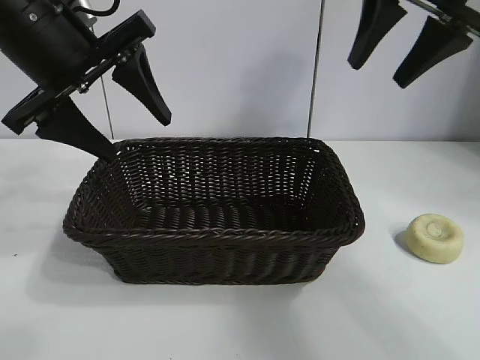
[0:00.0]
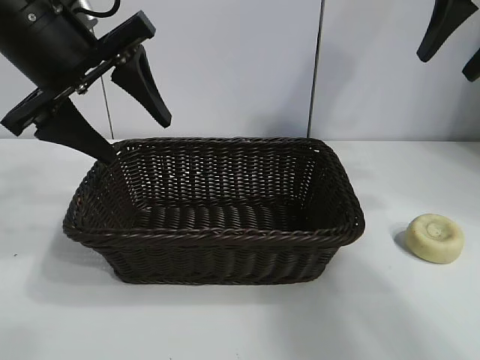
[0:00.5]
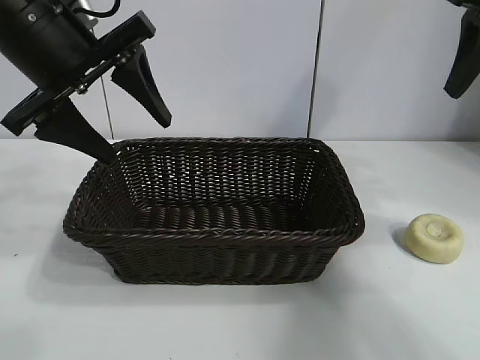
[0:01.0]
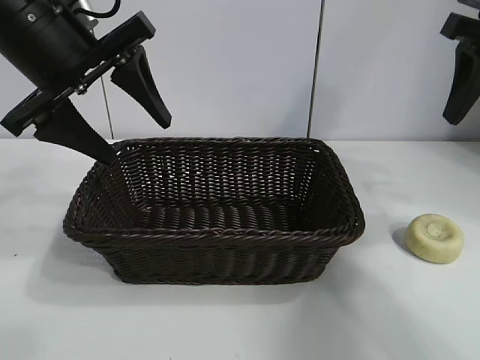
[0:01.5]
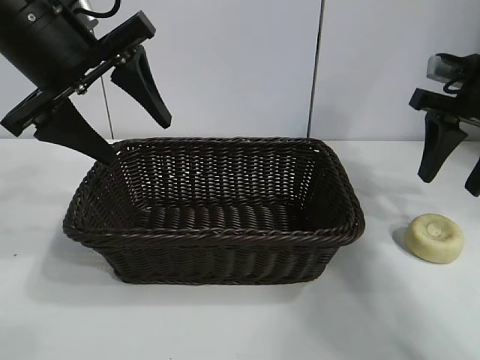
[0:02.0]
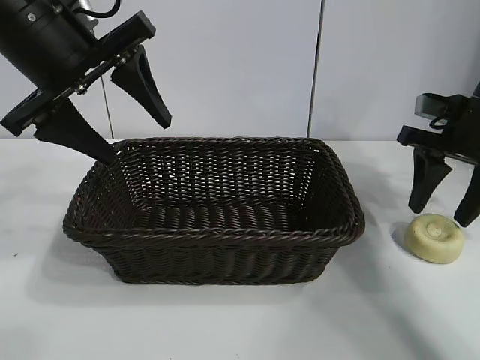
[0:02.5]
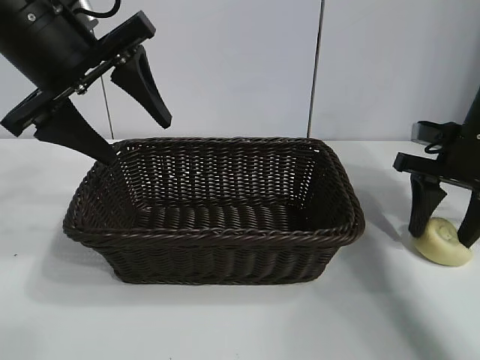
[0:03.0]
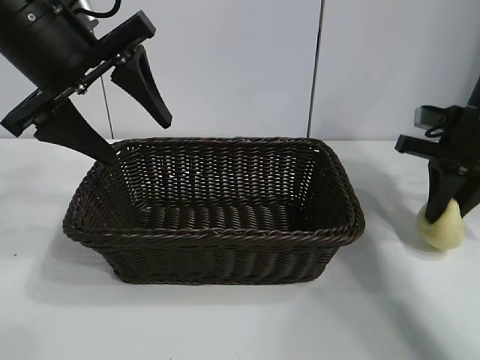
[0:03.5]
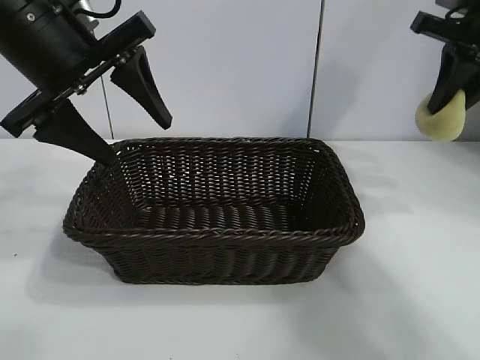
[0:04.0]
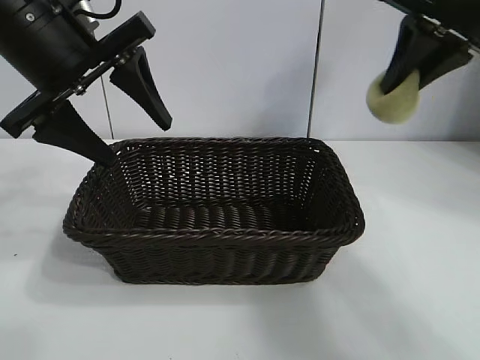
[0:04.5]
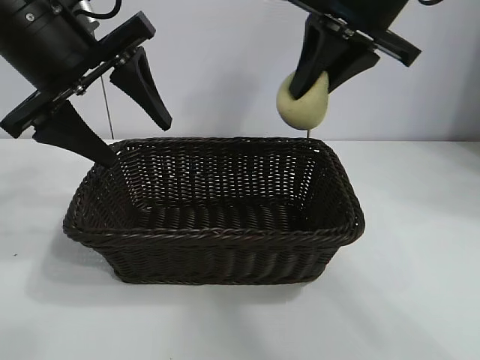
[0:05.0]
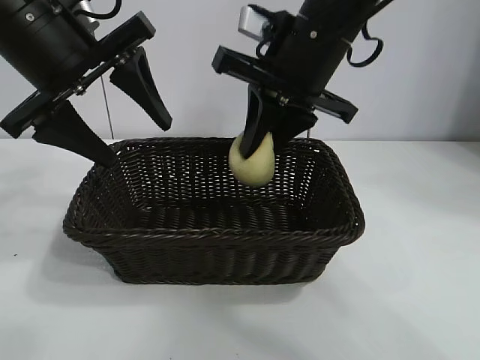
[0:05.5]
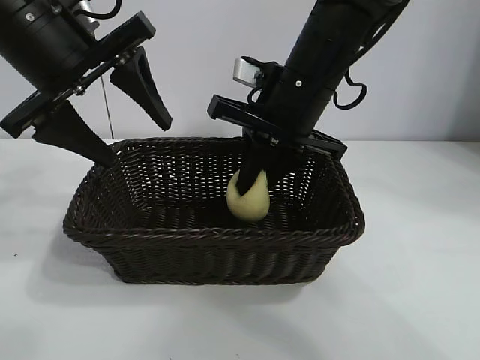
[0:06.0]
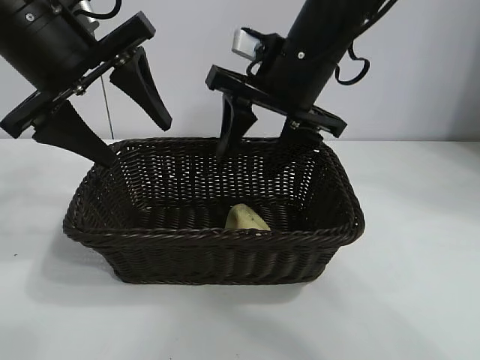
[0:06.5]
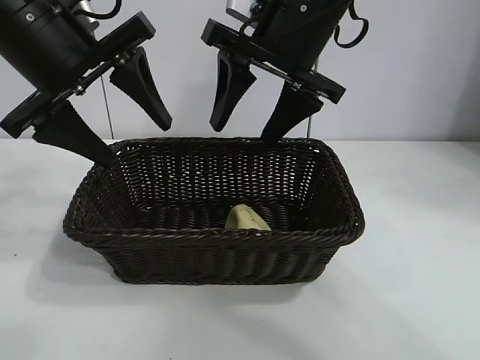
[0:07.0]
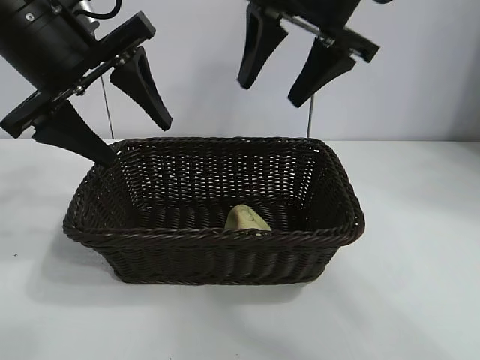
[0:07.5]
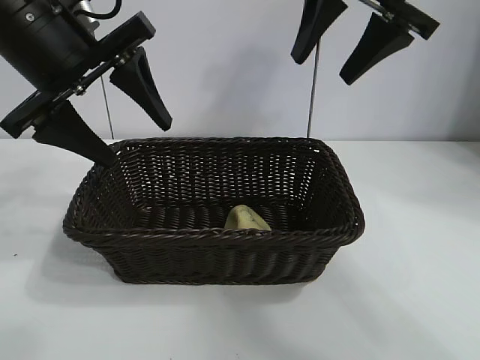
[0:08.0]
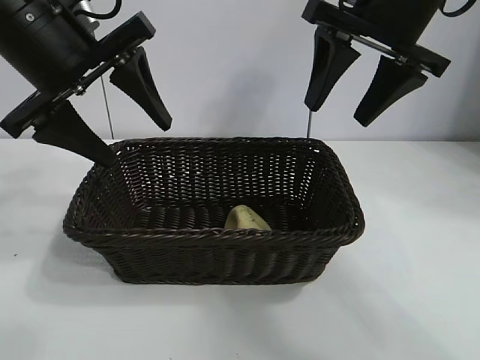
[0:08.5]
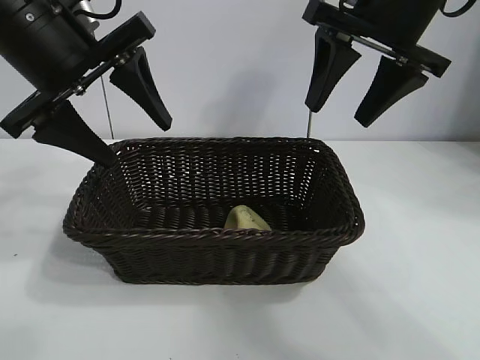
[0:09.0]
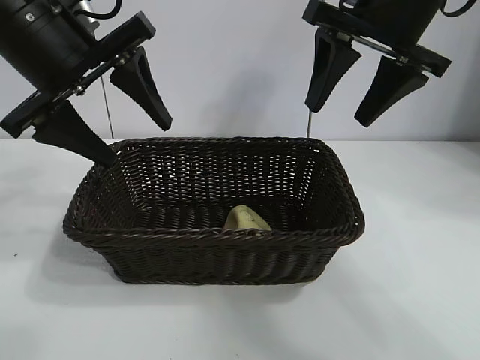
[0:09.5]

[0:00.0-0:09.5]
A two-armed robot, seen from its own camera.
Task of the whole recording: pick up the egg yolk pastry and put it into the basket.
Step, 0:00.0 to 0:03.0: Grasp egg yolk pastry with right gripper.
Step, 0:03.5 to 0:06.0: Place the egg yolk pastry in the basket with right gripper.

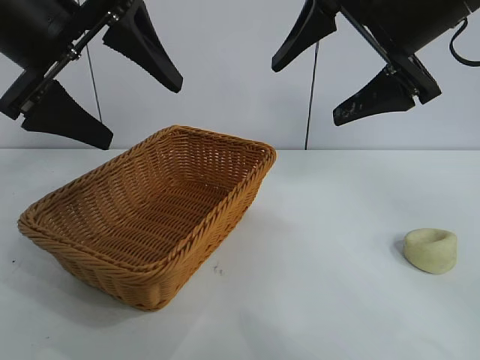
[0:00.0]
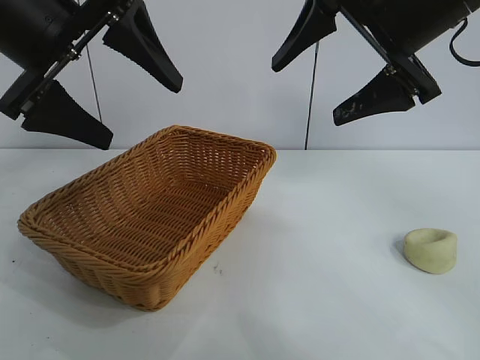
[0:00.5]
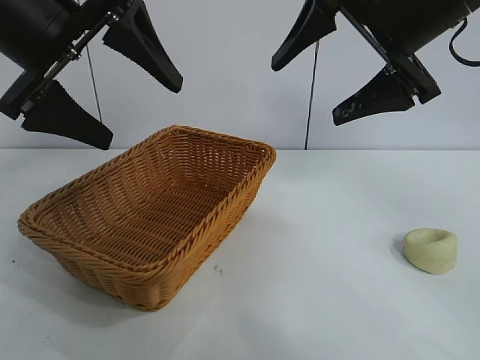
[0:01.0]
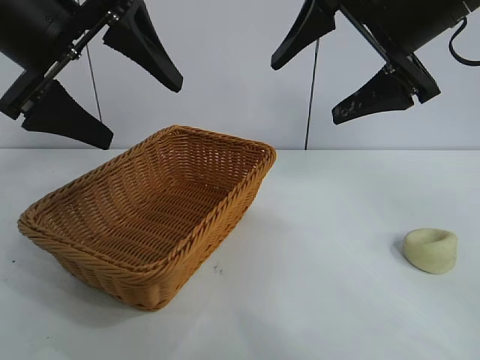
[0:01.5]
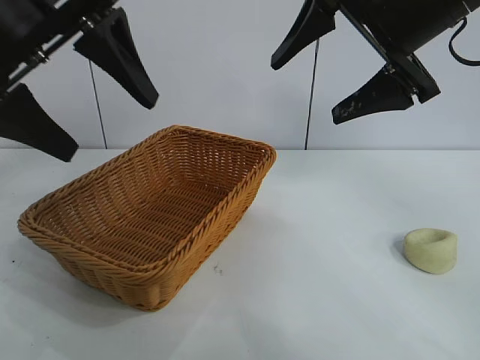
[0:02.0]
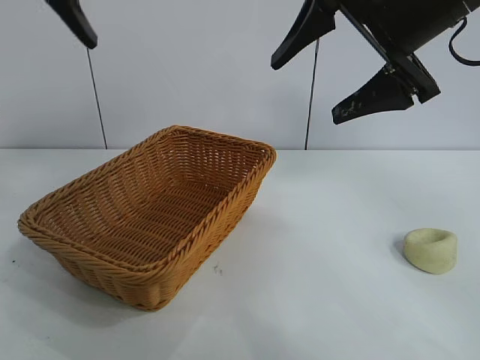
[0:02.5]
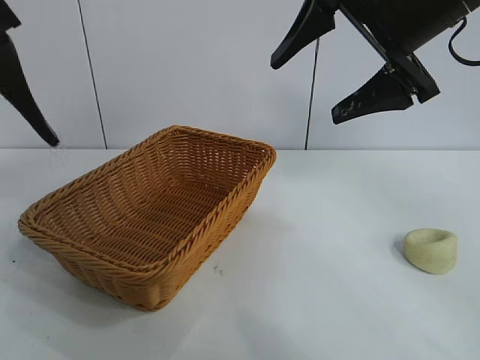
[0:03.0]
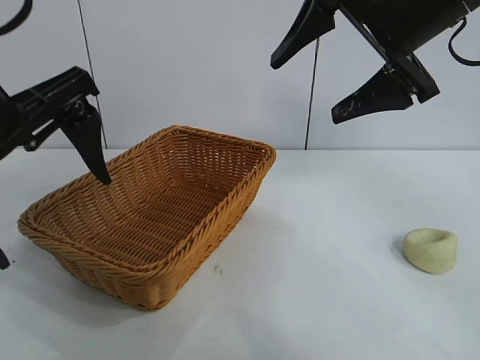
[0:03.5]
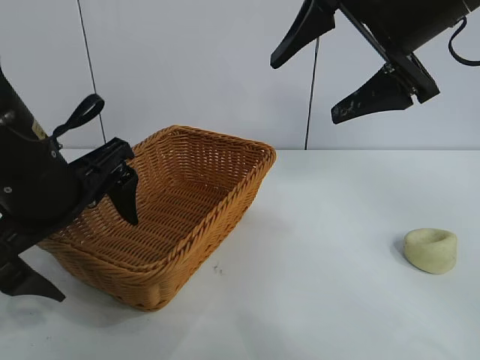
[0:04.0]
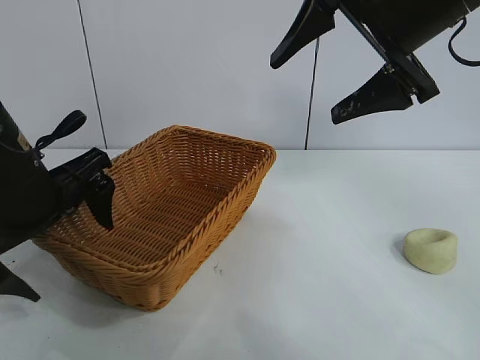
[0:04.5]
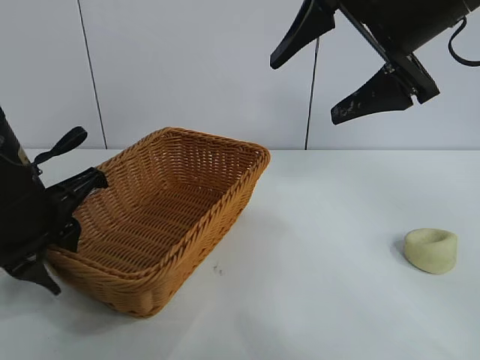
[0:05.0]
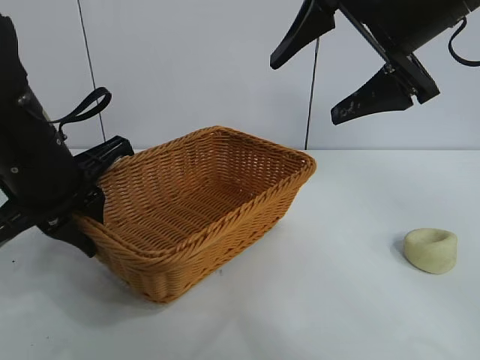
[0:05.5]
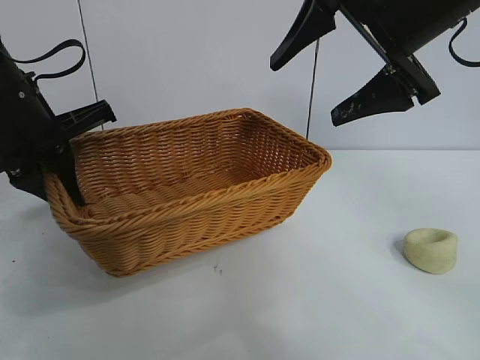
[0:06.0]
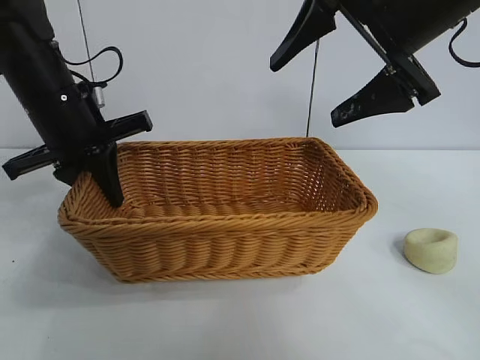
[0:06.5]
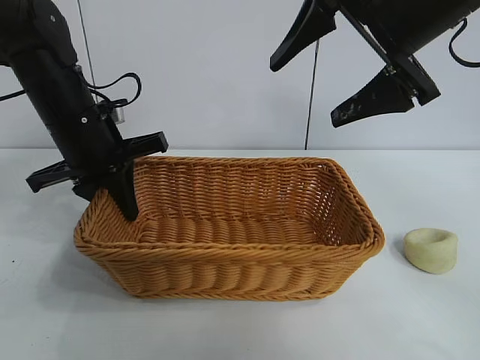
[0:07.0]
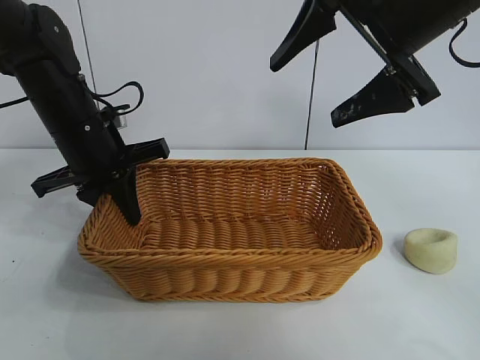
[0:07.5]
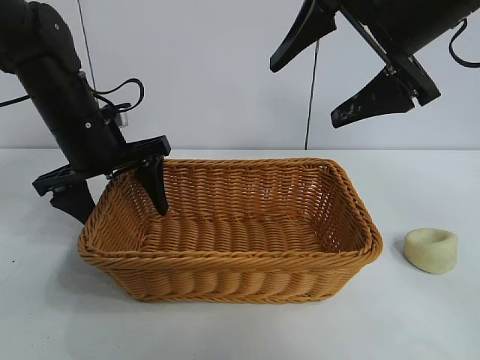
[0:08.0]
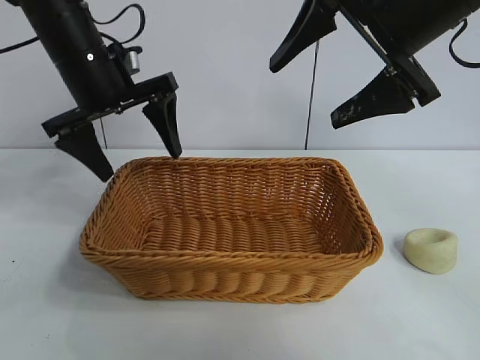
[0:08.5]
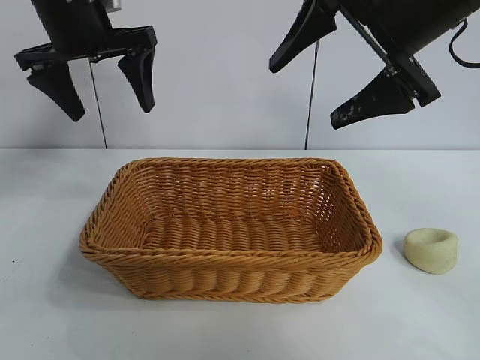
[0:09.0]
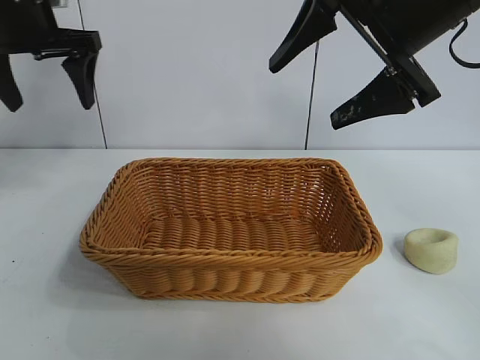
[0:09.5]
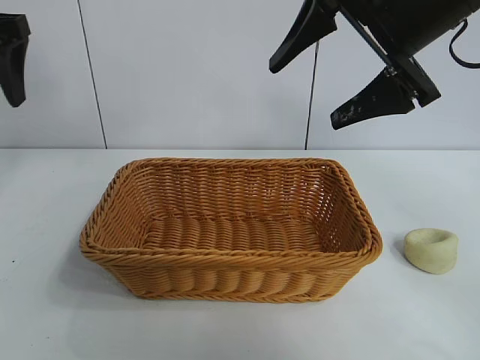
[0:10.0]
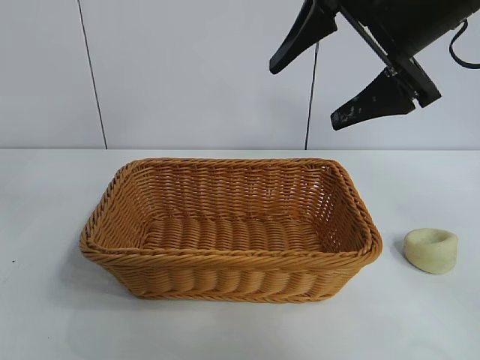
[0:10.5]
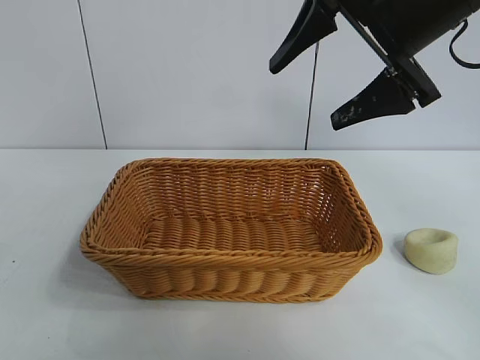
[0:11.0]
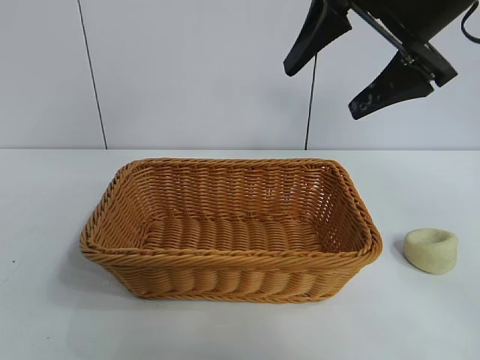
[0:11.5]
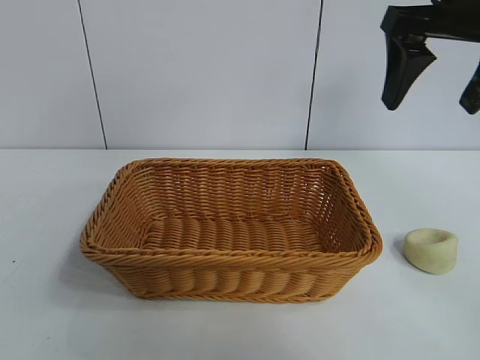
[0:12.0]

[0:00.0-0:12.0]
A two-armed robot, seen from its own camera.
Task of the whole recording: pick up the egg yolk pastry and put it into the basket.
Step, 0:02.0 to 0:05.0: Grasp the basket with left gripper.
Step, 0:05.5 to 0:08.0: Place the basket in the center of view with left gripper.

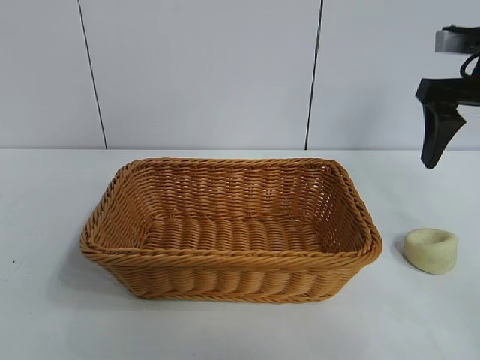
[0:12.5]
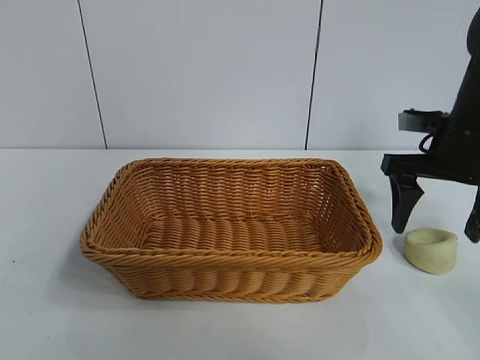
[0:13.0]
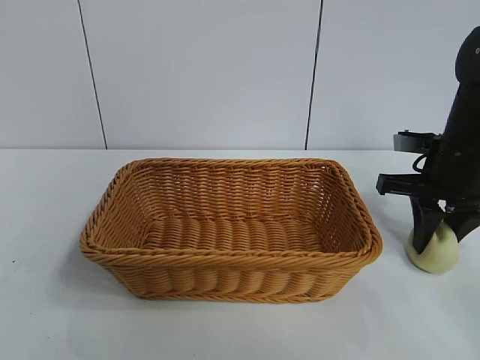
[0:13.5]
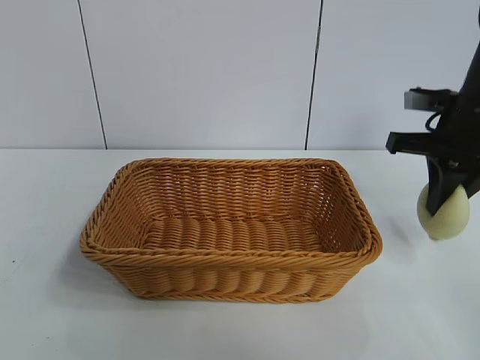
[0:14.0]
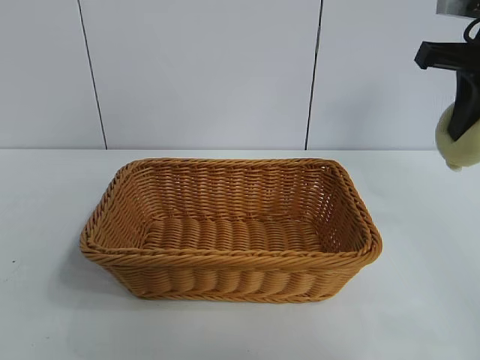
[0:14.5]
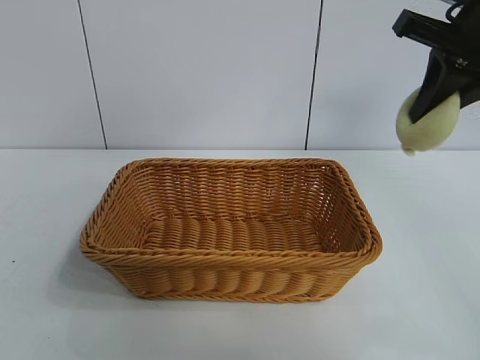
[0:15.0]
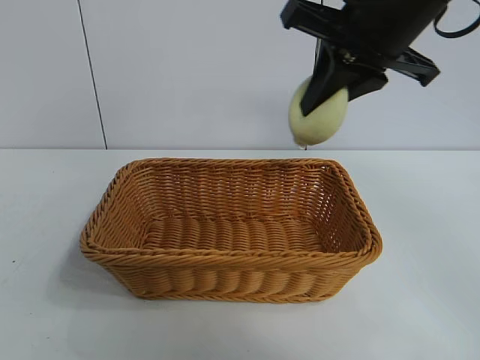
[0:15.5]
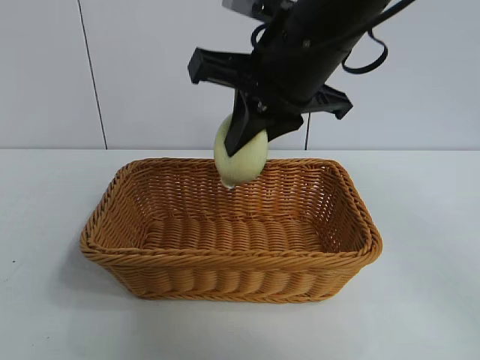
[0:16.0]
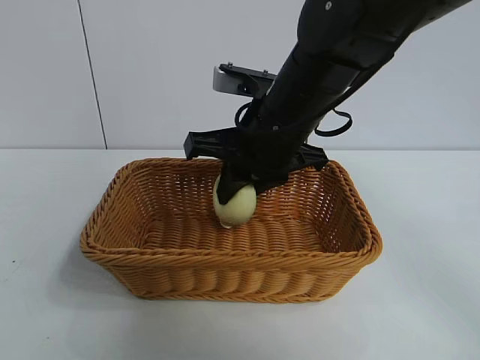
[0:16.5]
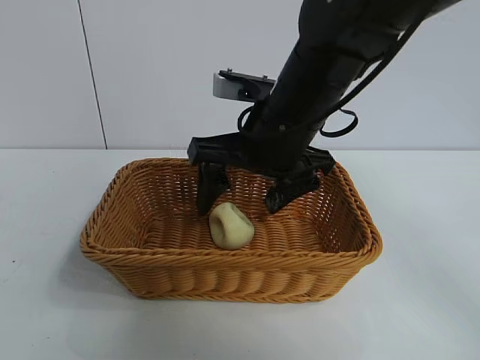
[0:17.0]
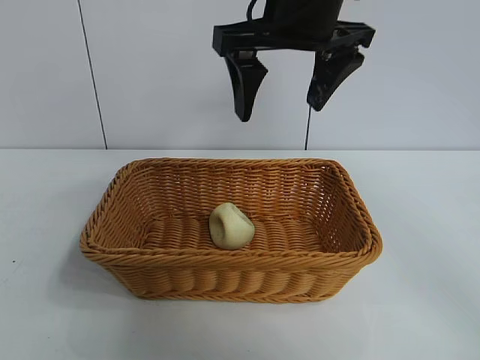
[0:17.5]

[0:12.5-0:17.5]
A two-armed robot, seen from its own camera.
Task of the whole recording: pick up the egg yolk pastry and put it into the basket.
Step, 0:14.0 to 0:16.5: Place the egg yolk pastry in the basket with right gripper.
